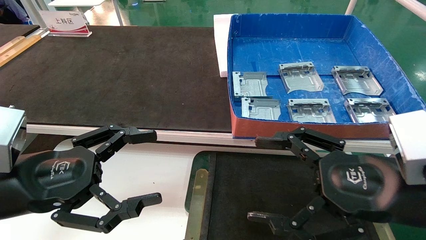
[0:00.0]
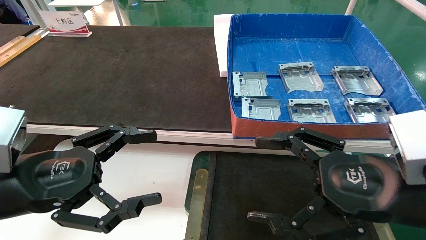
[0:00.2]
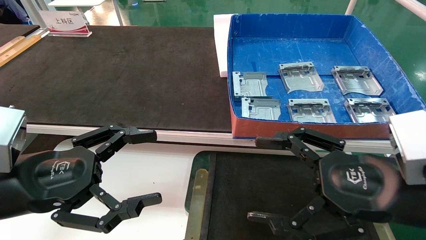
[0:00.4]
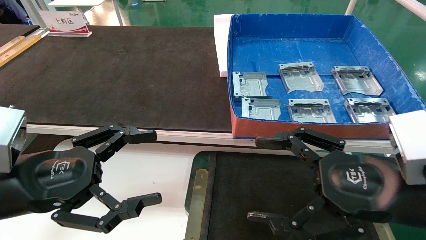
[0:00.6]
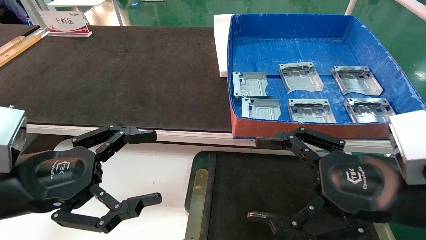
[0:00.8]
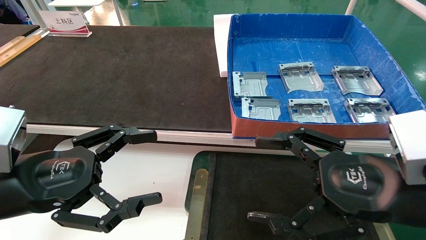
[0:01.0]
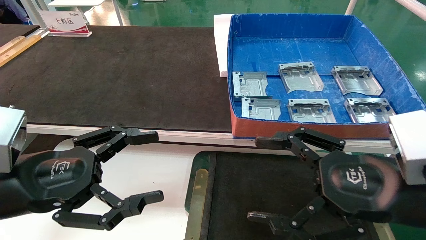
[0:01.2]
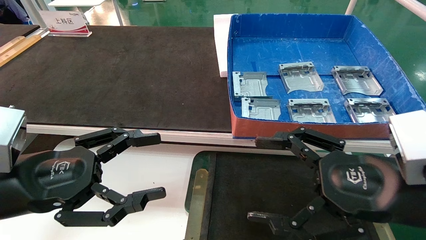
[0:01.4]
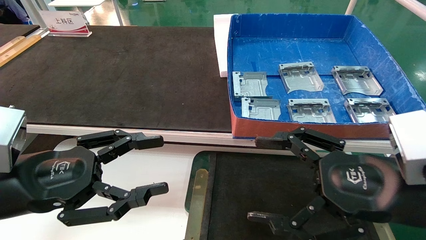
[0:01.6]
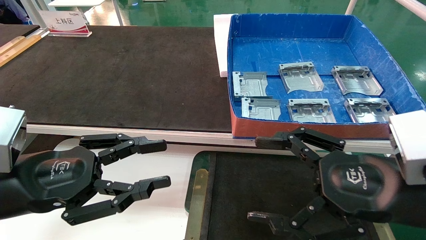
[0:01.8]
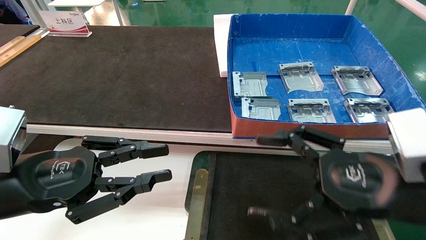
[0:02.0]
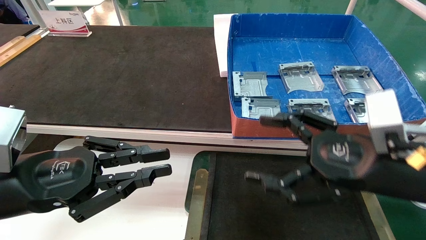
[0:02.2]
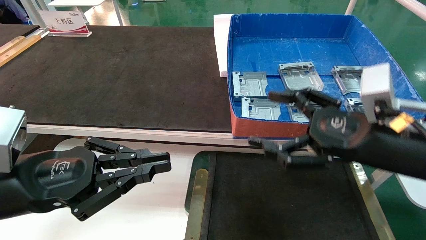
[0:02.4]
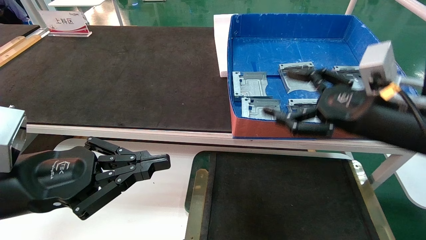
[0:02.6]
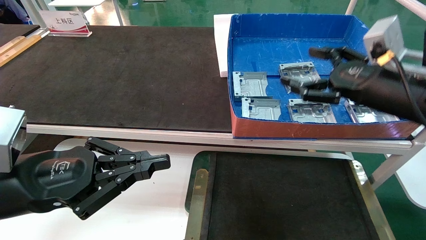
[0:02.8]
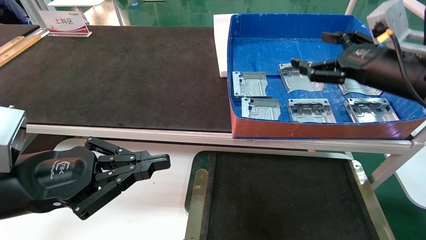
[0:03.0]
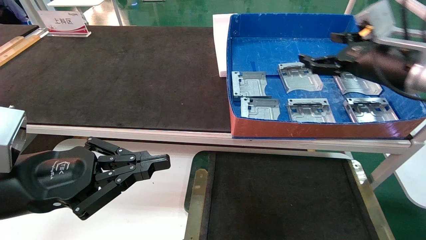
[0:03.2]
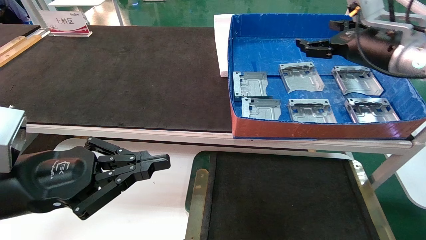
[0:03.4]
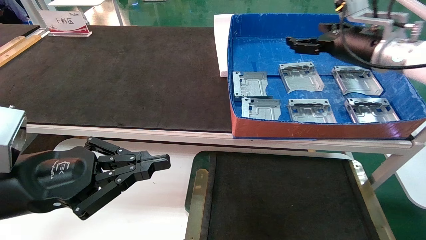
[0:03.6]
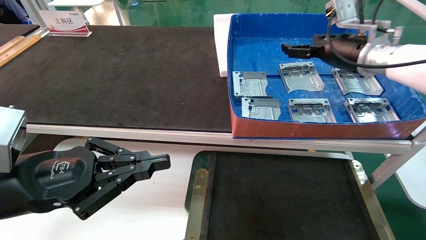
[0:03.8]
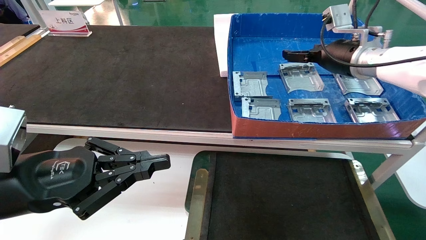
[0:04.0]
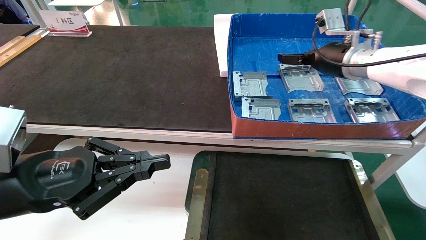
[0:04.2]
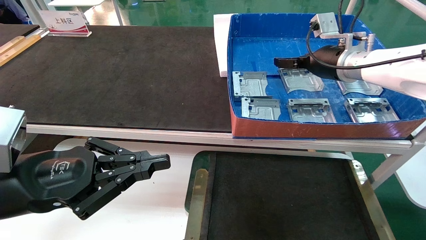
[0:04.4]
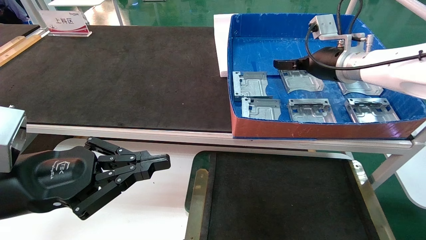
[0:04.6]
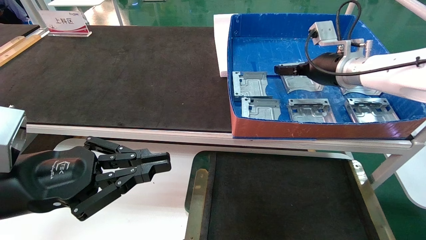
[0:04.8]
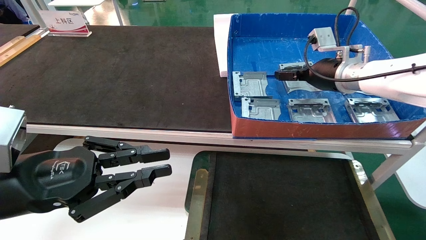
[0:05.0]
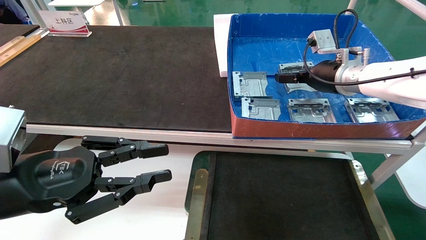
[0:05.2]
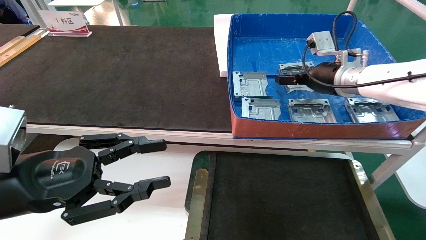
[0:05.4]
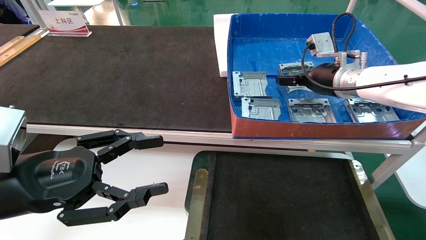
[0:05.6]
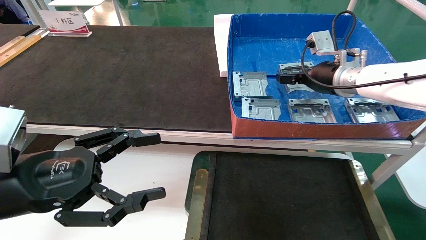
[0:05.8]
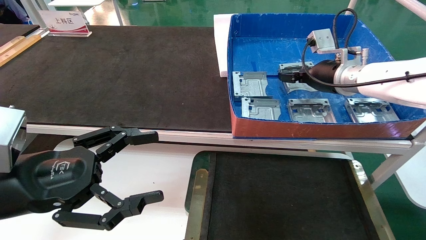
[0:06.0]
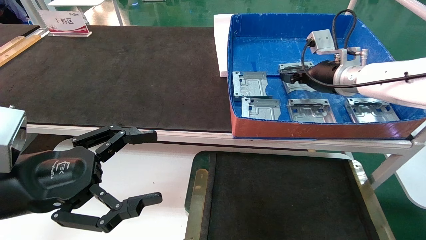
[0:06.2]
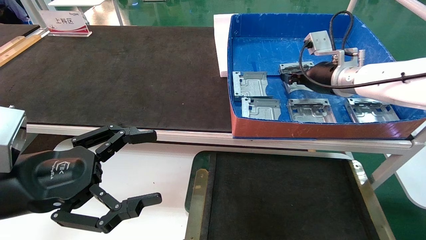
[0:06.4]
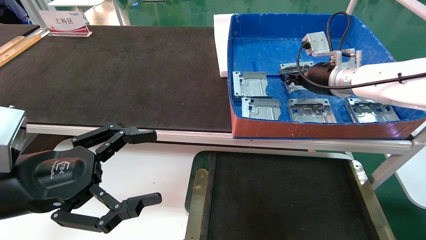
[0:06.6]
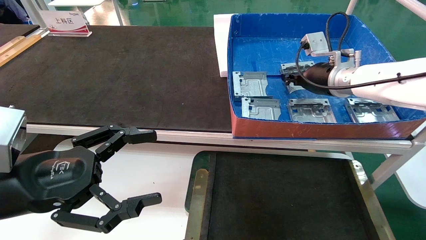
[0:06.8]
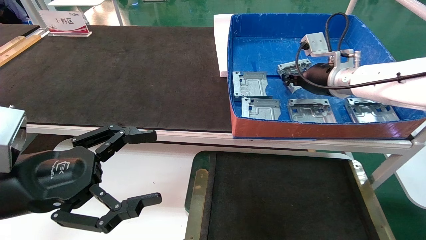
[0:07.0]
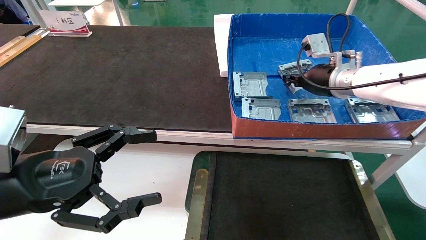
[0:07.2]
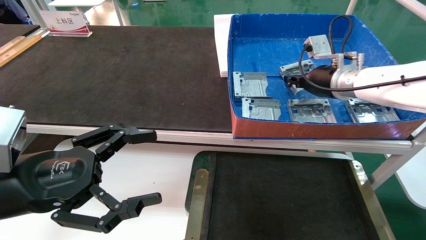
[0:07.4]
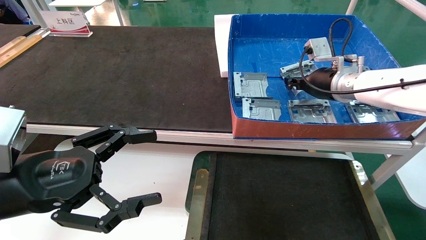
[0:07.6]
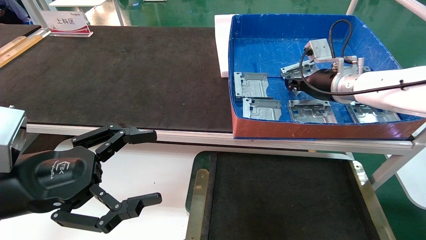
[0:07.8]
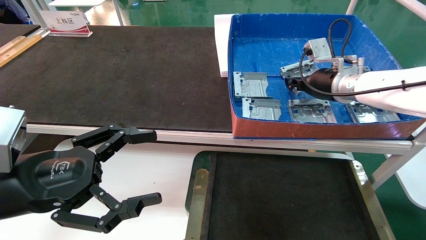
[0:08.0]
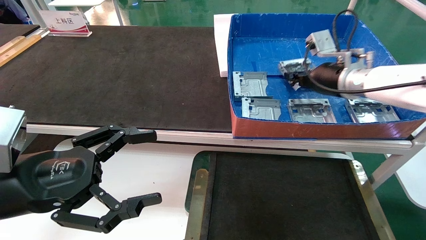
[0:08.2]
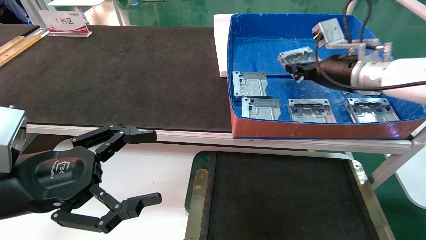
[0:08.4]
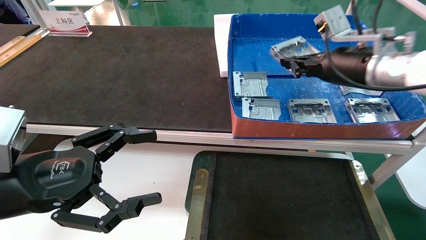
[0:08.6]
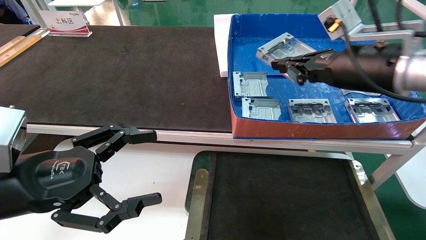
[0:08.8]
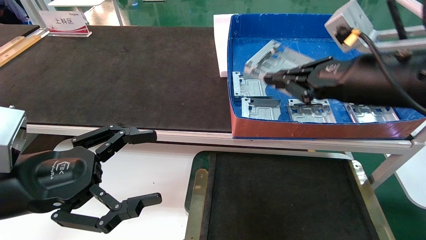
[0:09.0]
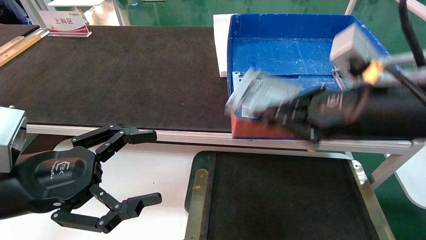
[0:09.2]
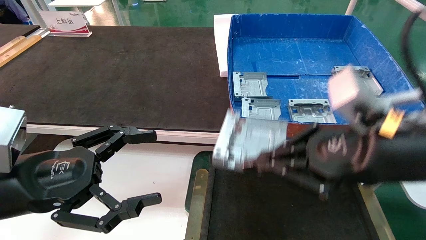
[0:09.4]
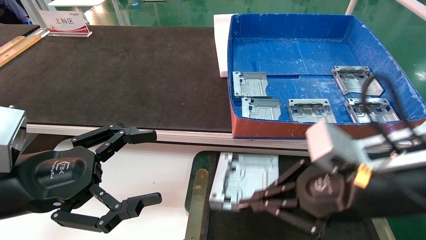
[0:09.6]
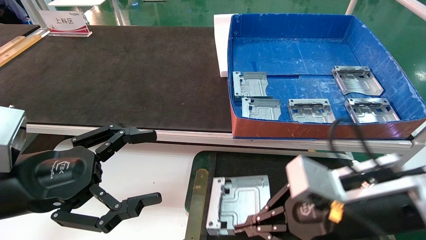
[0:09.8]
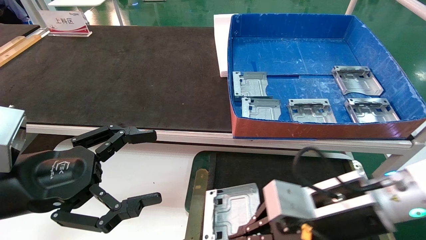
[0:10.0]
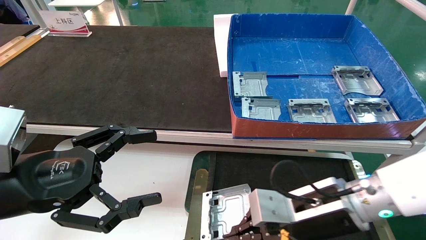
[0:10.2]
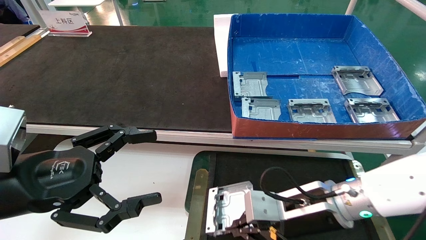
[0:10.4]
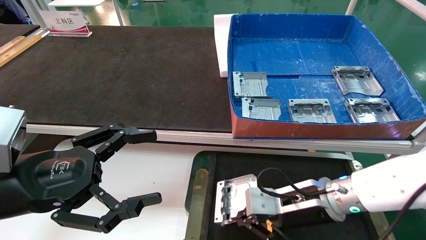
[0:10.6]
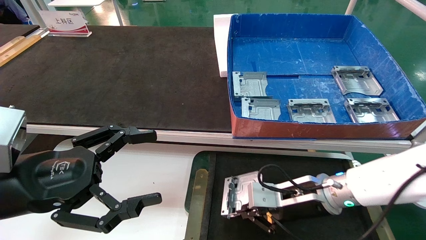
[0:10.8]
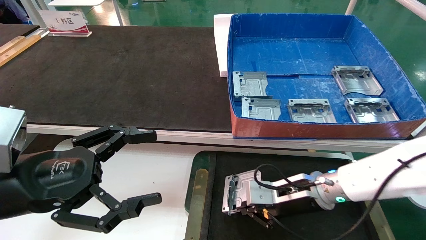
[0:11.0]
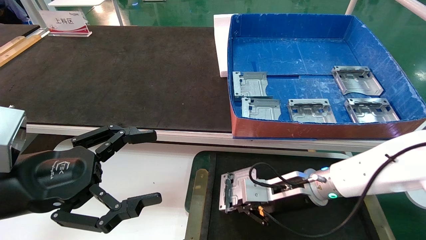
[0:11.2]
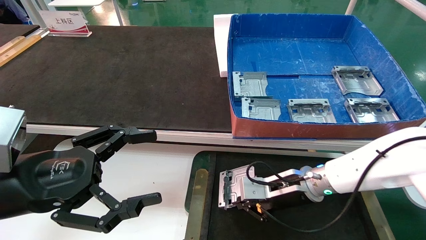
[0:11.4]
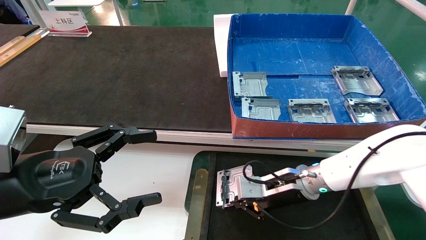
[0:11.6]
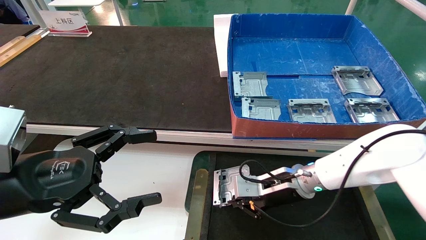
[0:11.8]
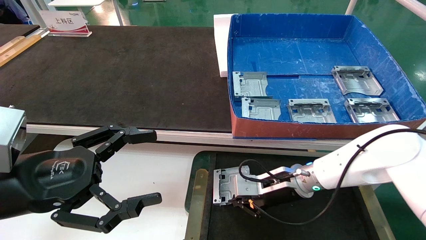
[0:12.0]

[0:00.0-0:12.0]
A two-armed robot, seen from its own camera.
Task of the whole recording: pick up parts and place them into a black container.
Step, 0:02.6 to 0:07.2: Pick up the hard drive bracket from the feeding area.
0:00.0 to 0:01.6: Both grippers stay about where they are.
0:01.6 to 0:03.0: The right gripper goes about 20 cm forward, upward and to the right; the left gripper closes.
0:03.0 to 0:04.4: The right gripper heads forward and to the left, covering roughly 15 cm.
0:04.4 to 0:06.0: The left gripper opens up.
0:06.0 to 0:07.6: The right gripper closes up.
0:07.6 to 0:09.0: The right gripper travels backward by roughly 20 cm.
0:09.0 to 0:10.4: The right gripper goes roughly 20 cm downward.
0:10.4 to 0:12.0: The right gripper shifts approximately 10 cm forward.

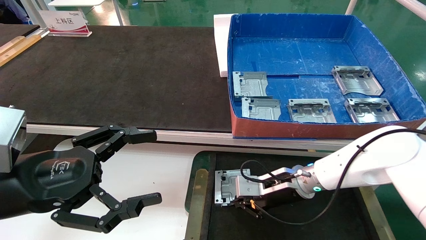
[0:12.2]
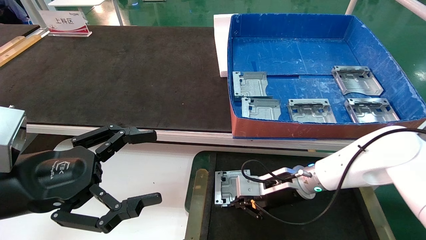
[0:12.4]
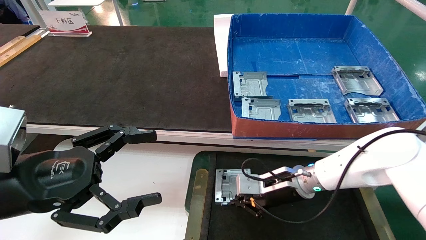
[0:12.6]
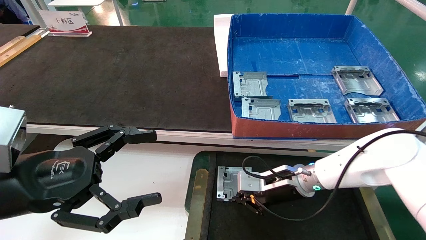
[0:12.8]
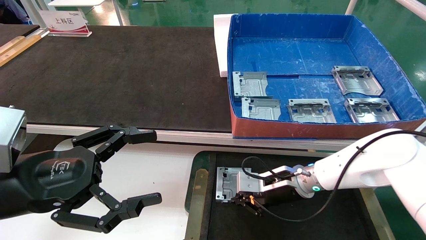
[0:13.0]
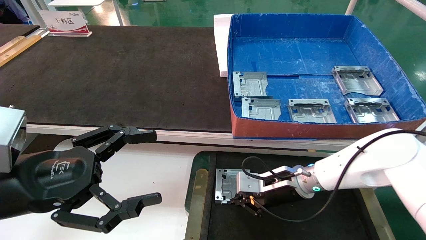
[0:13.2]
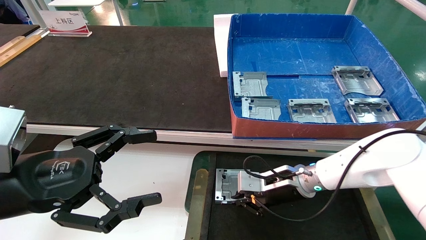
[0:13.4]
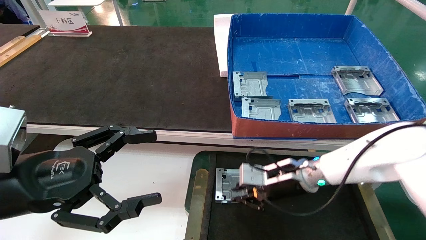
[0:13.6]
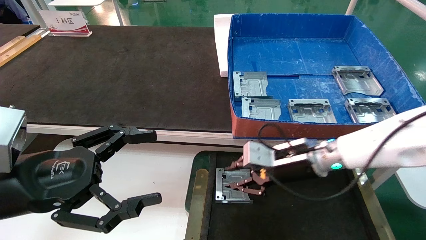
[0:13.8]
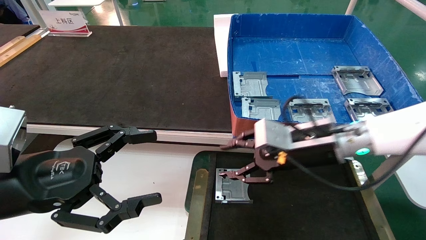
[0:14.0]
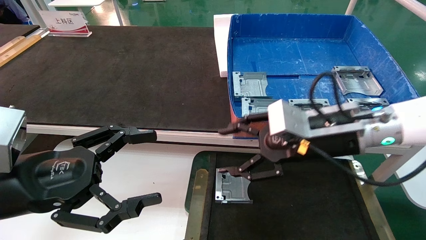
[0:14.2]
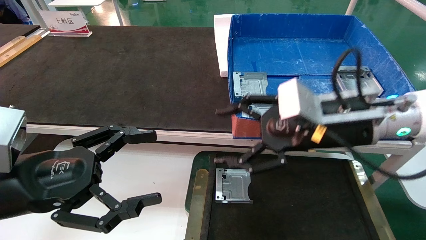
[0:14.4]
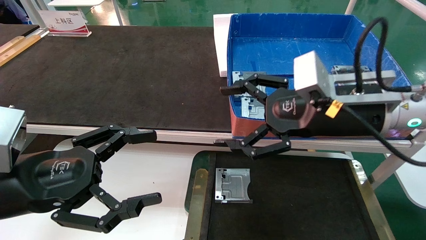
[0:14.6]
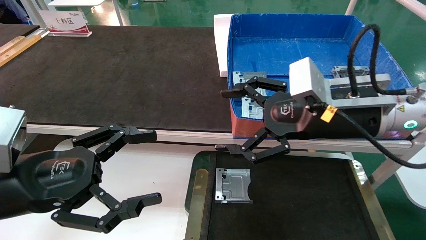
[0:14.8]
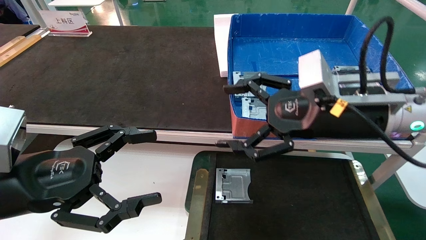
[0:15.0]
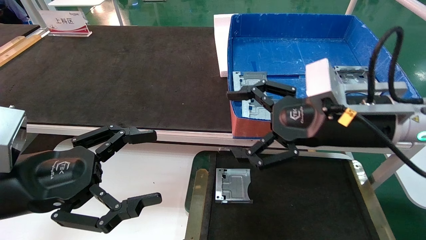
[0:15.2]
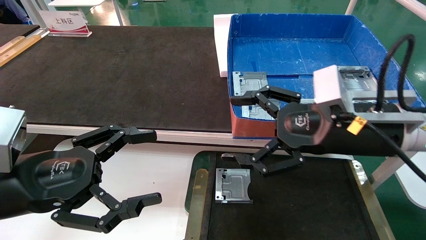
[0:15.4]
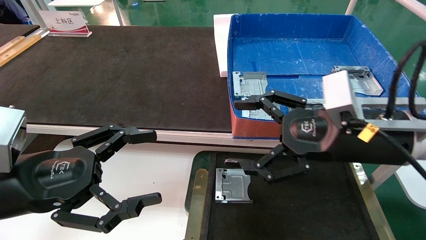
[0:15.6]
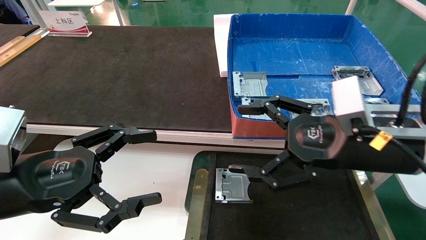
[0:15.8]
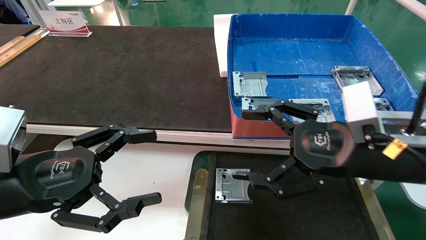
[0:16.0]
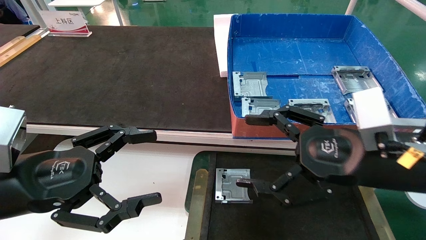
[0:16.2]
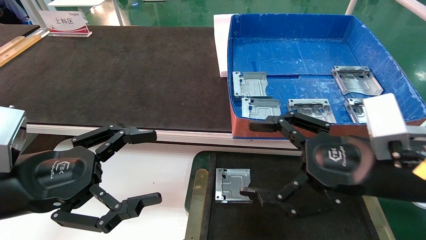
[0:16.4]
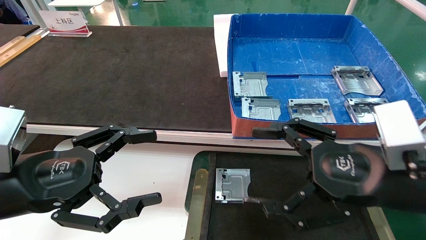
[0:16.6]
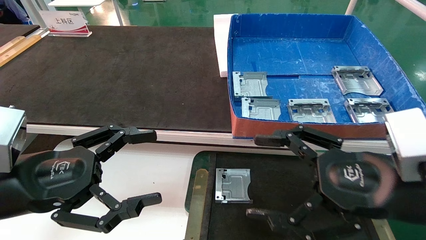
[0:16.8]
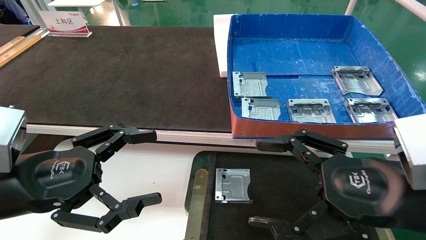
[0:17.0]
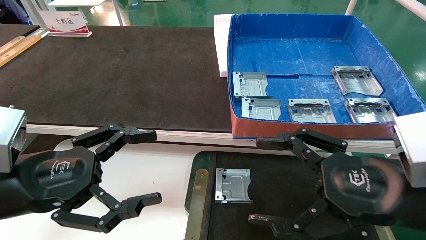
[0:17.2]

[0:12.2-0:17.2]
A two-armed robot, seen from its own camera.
Task of the whole recording: pick up parts and place them into a black container.
0:12.2 to 0:13.8: The right gripper goes roughly 10 cm upward.
0:13.8 to 0:15.6: The right gripper goes roughly 15 cm backward and upward, and opens up.
0:15.6 to 0:17.2: The right gripper travels backward by about 10 cm.
